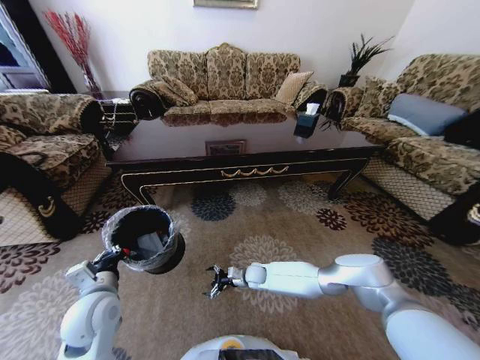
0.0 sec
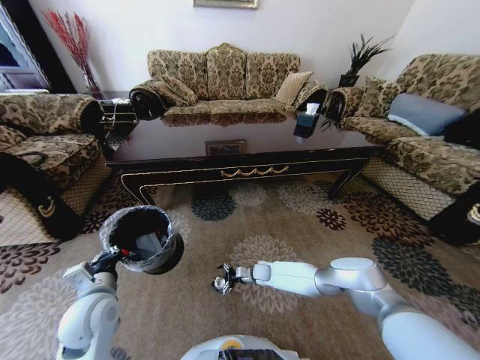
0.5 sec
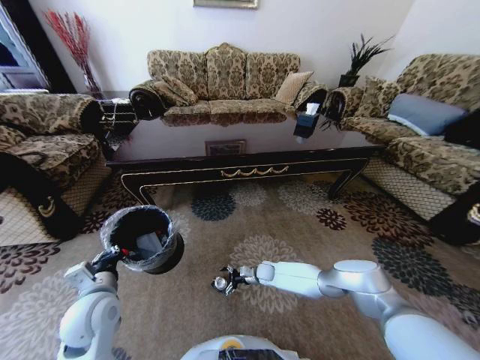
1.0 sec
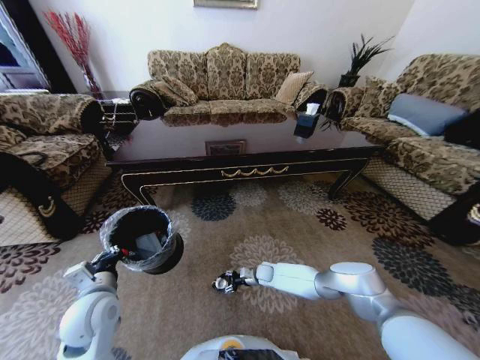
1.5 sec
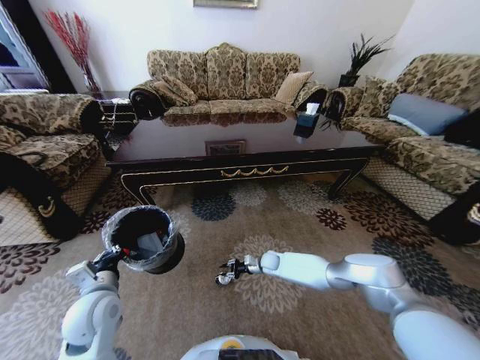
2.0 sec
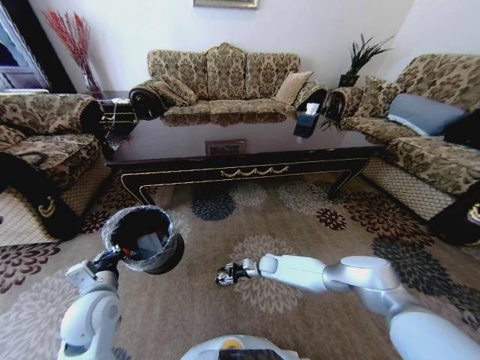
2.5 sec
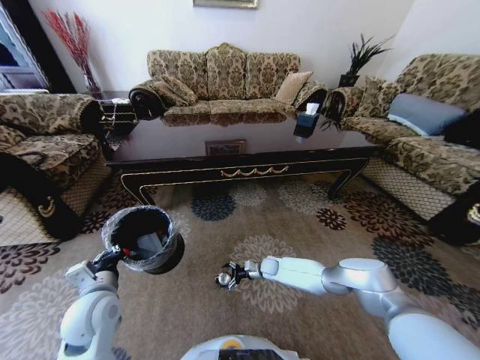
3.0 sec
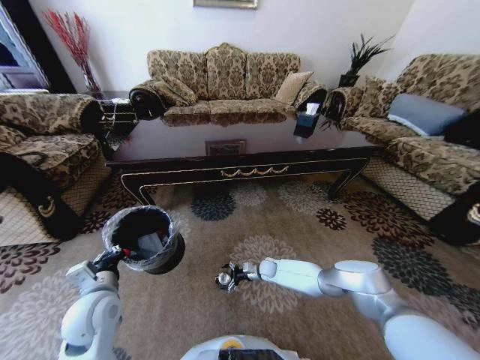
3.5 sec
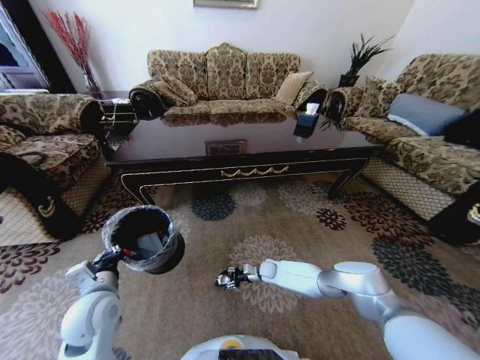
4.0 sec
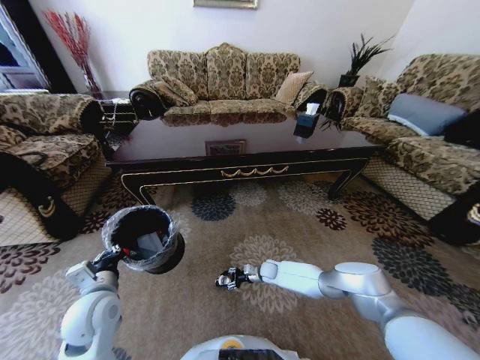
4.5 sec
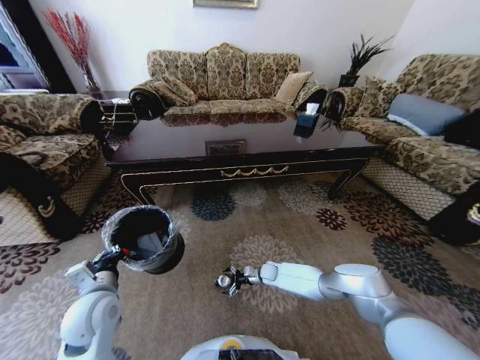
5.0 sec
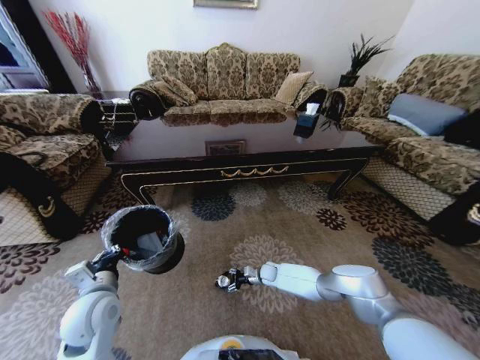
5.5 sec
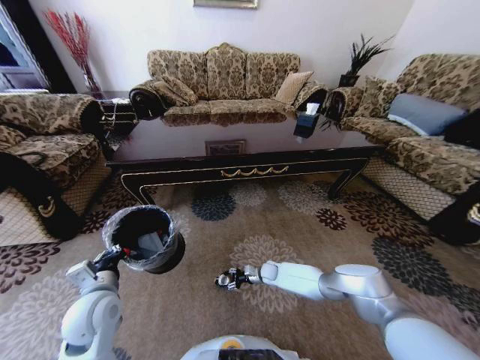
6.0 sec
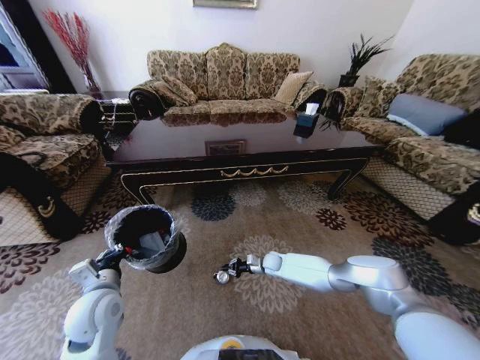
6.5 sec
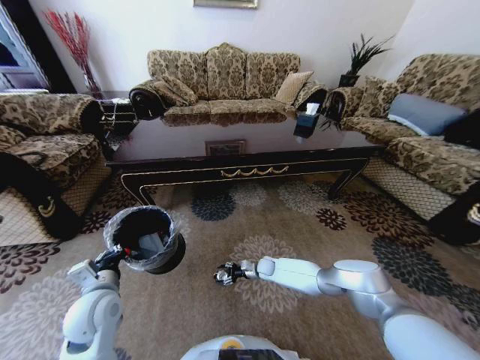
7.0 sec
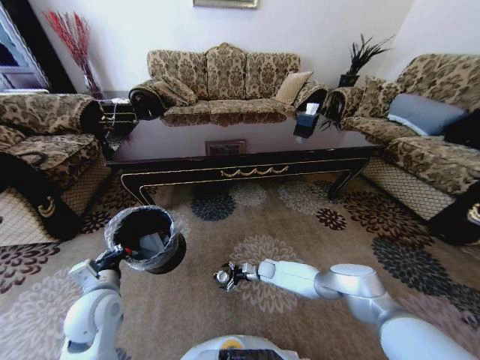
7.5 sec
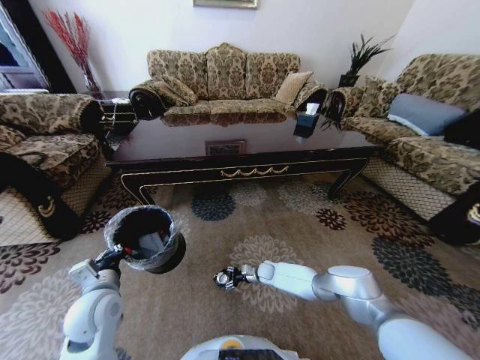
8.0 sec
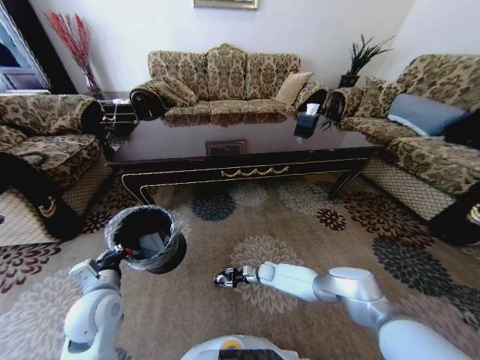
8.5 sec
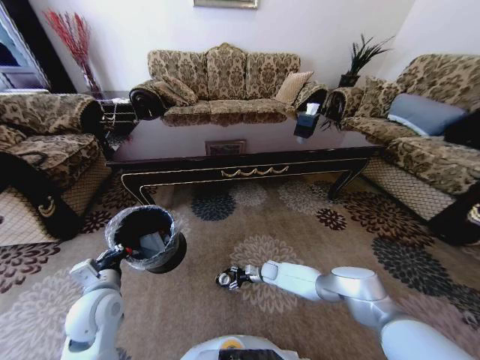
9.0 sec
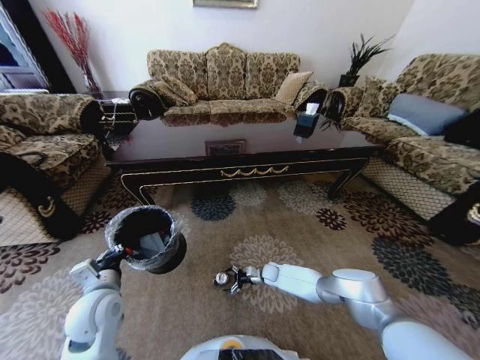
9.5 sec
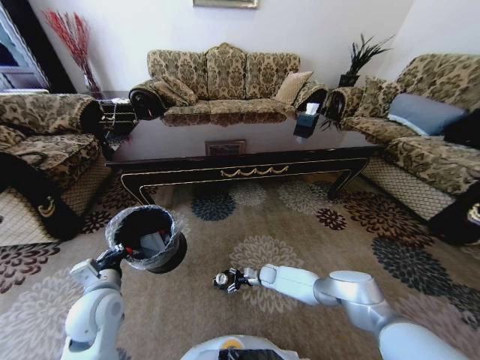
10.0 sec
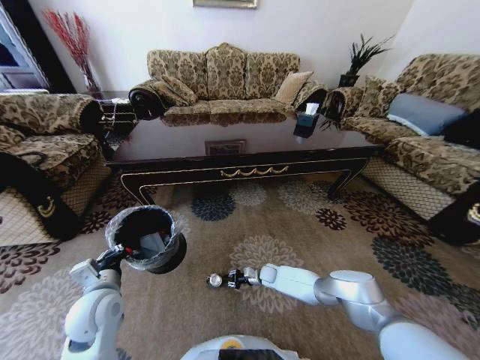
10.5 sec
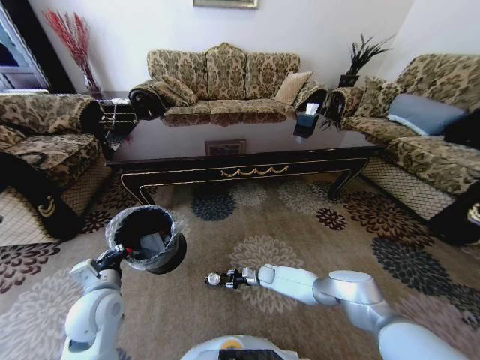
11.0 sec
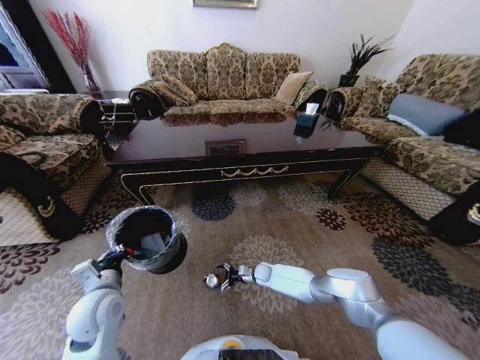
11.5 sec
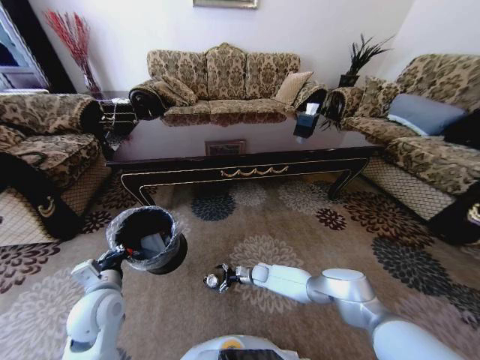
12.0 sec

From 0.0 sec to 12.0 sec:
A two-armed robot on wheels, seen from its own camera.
Task of the whole recording: Move to the front of the table and pick up the trash from the floor, then place it into the trash bin.
From 0.0 sec to 2.0 sec: The right gripper heads to the right and forward, covering some 10 cm, and closes up.
From 2.0 sec to 4.0 sec: The right gripper opens, then closes once more.
From 4.0 sec to 6.0 sec: The right gripper opens, then closes once more.
From 6.0 sec to 8.0 sec: The right gripper closes, then reopens.
From 8.0 sec to 10.0 sec: The grippers make only small movements.
From 10.0 sec to 12.0 sec: The right gripper closes and opens again.

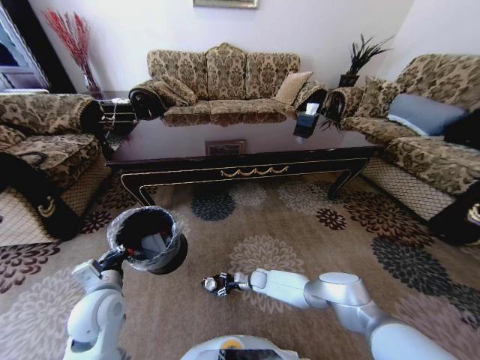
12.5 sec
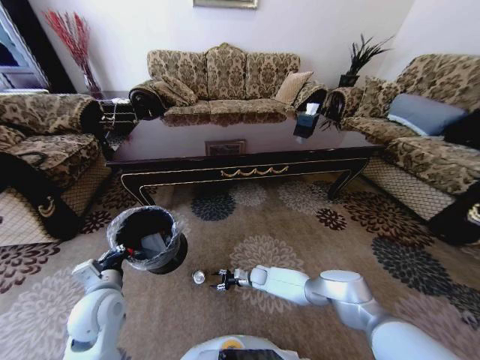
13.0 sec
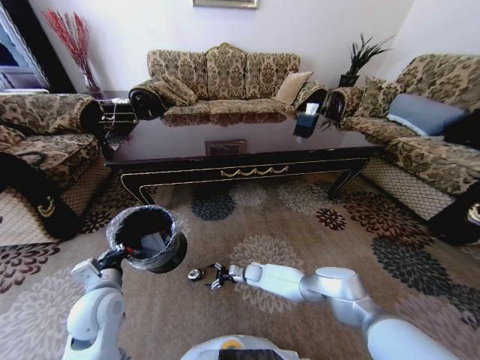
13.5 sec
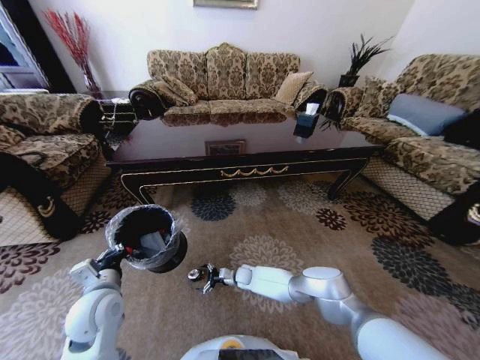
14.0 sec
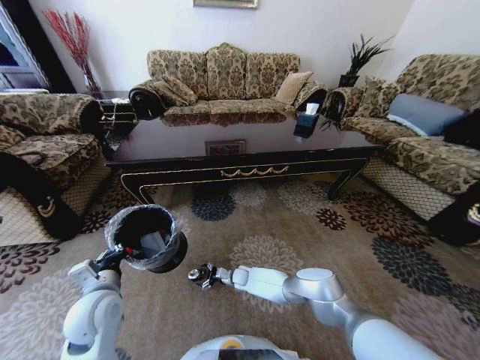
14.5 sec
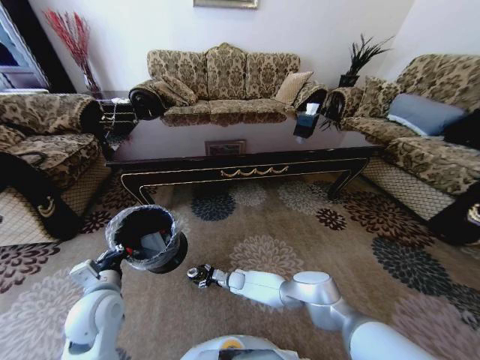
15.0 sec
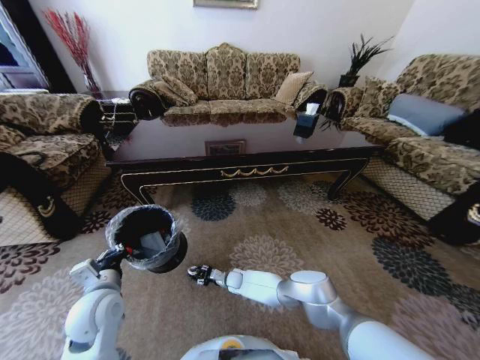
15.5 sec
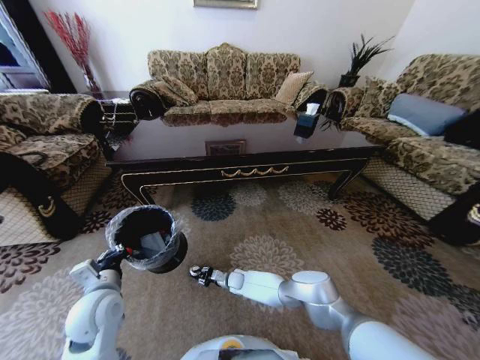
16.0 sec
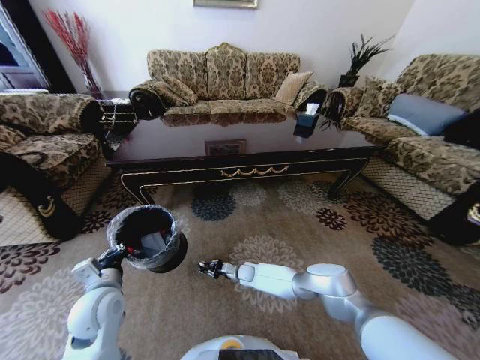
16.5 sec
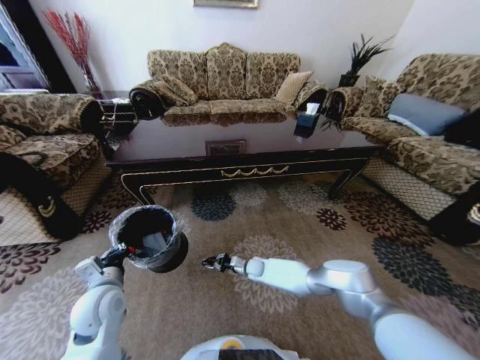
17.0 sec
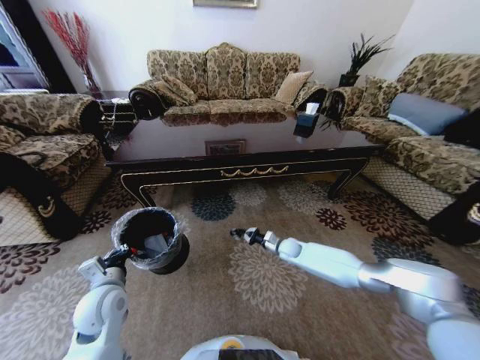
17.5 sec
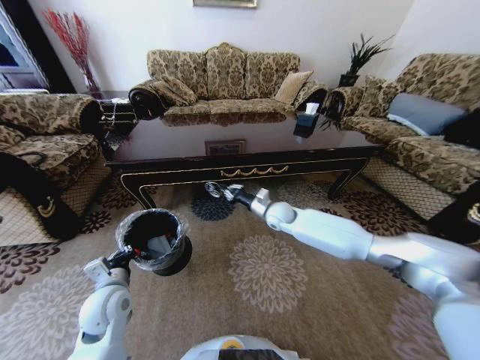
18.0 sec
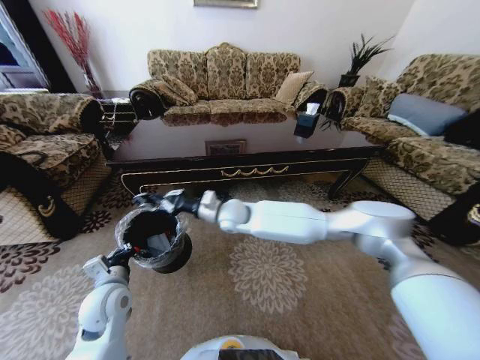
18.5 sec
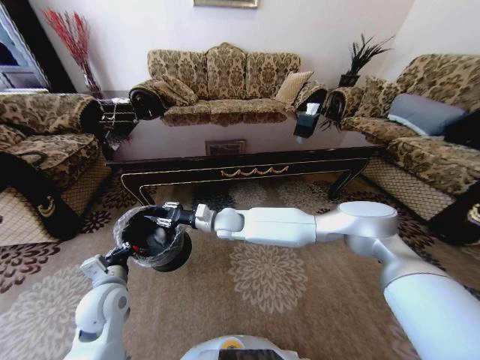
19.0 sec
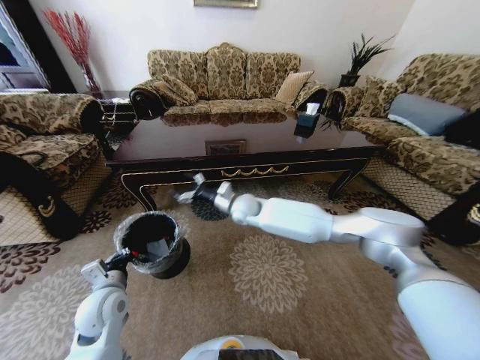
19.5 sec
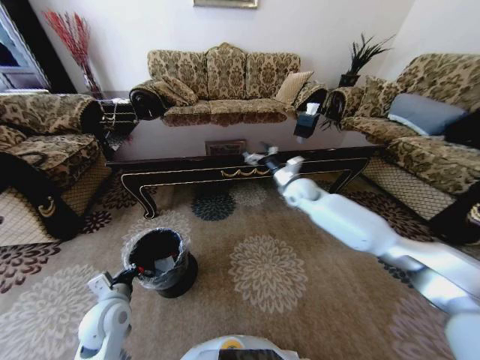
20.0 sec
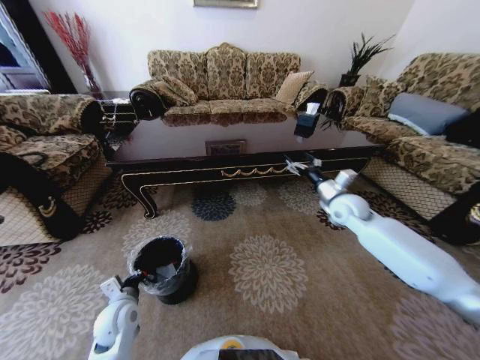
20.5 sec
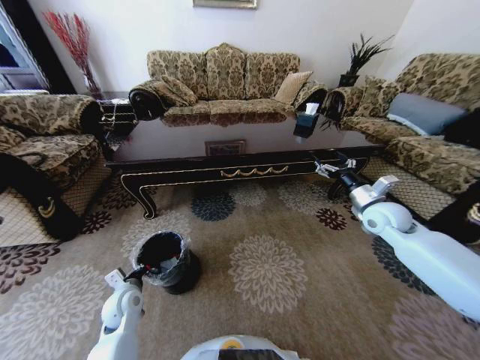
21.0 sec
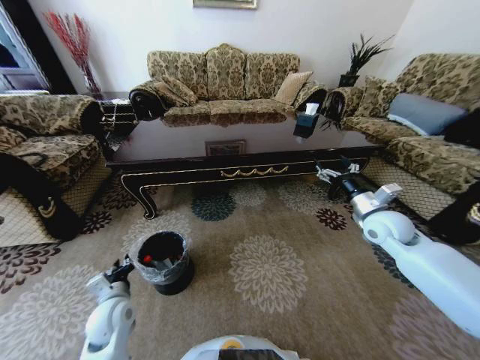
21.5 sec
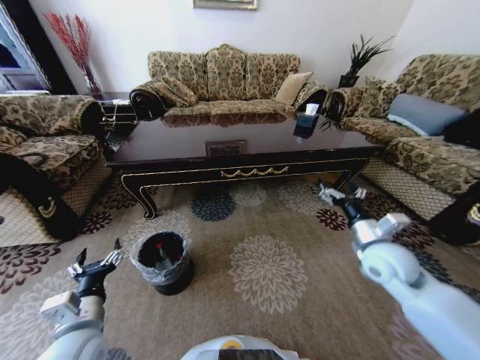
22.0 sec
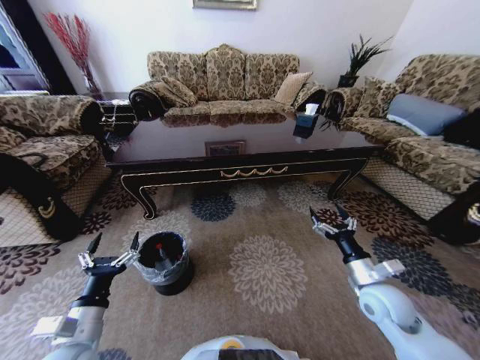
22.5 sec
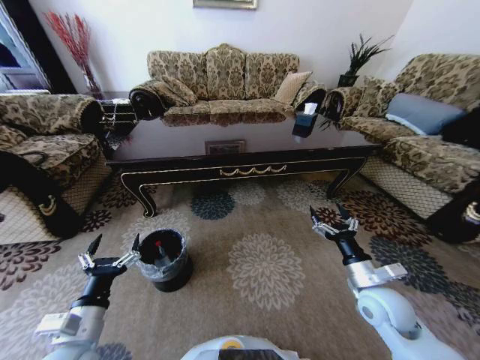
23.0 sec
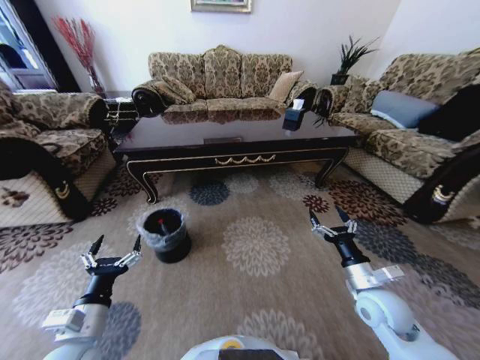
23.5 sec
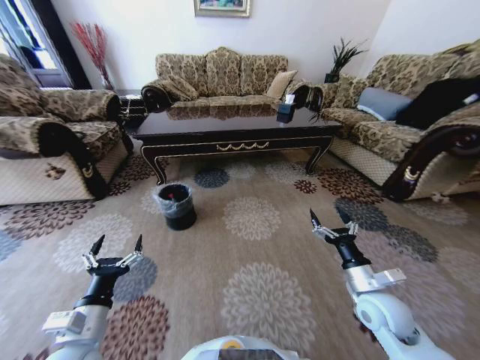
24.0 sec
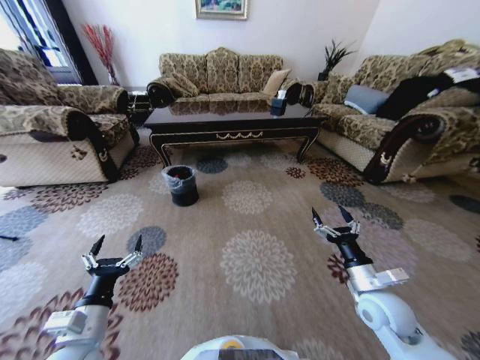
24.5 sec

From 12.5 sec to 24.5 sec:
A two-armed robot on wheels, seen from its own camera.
Task of the whole recording: Move to the front of the table and pick up the trash from the floor, then place it into the trash bin.
From 12.5 sec to 14.5 sec: The right gripper moves to the left, some 10 cm.
From 14.5 sec to 16.5 sec: The right gripper closes up.
From 16.5 sec to 18.5 sec: The right gripper is displaced upward by approximately 35 cm.
From 18.5 sec to 20.5 sec: The left gripper travels downward by roughly 5 cm; the right gripper goes approximately 35 cm to the right, and opens its fingers.
From 20.5 sec to 22.5 sec: The right gripper shifts roughly 25 cm backward and downward; the left gripper travels backward and upward by about 15 cm, and opens its fingers.

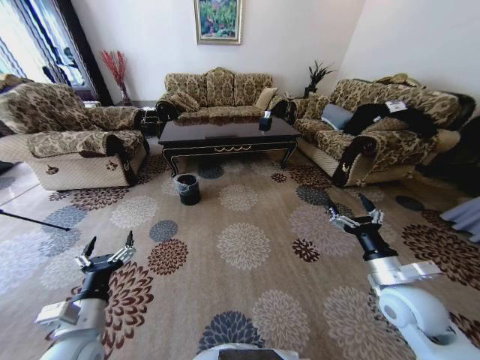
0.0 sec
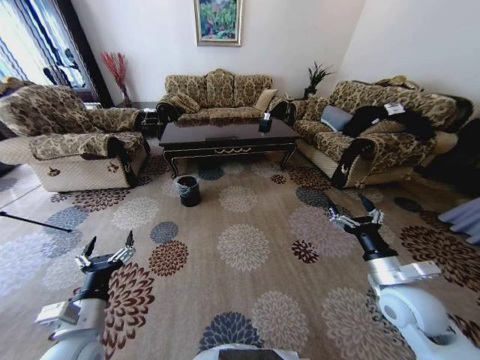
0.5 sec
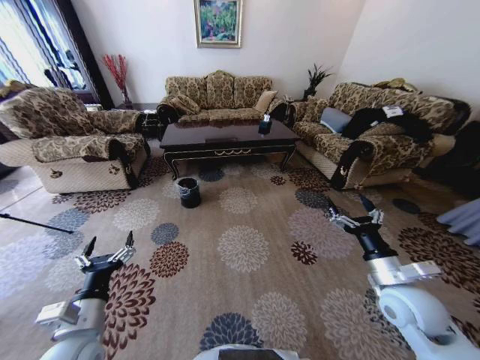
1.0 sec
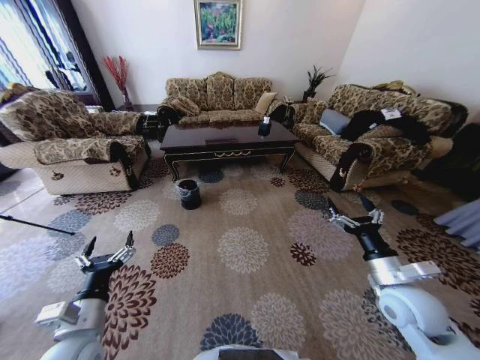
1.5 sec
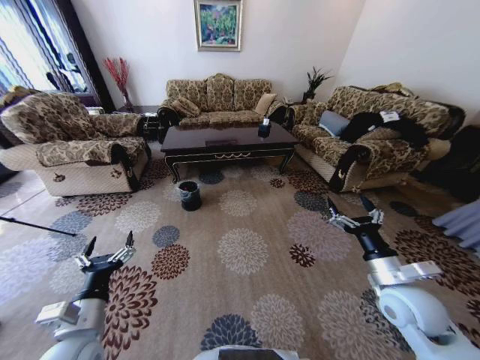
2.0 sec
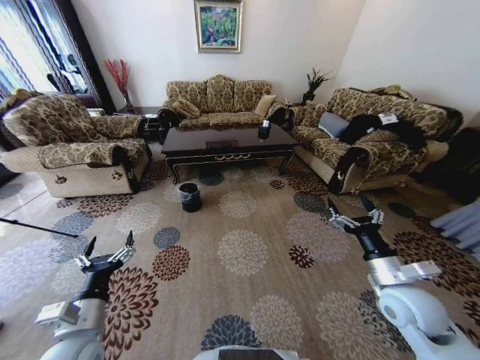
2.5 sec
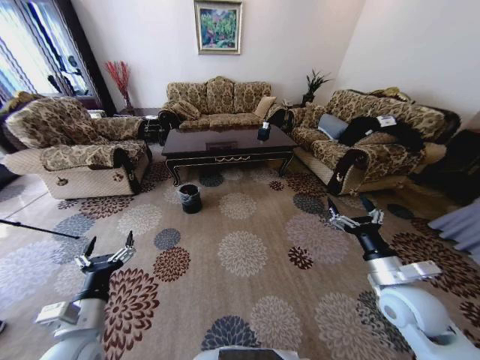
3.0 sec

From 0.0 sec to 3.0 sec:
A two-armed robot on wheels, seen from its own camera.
Task of the whole recording: Move to the front of the table and pick up the trash from the floor, then place it into the trash bin.
From 1.5 sec to 3.0 sec: Both grippers stay put.
